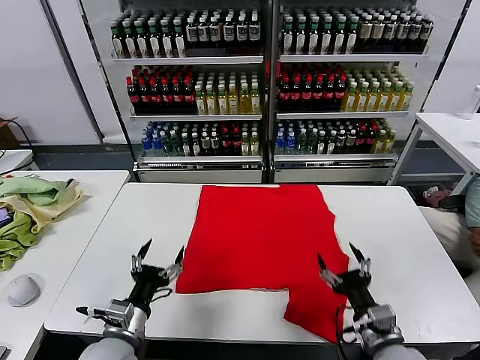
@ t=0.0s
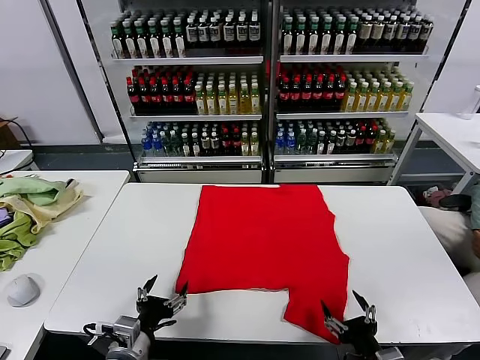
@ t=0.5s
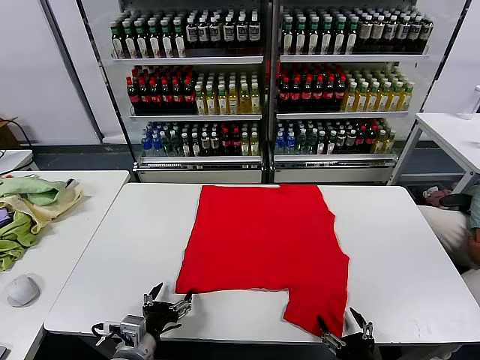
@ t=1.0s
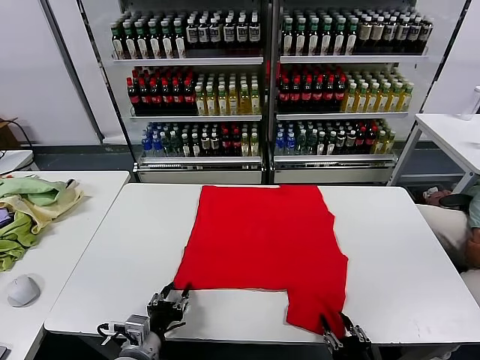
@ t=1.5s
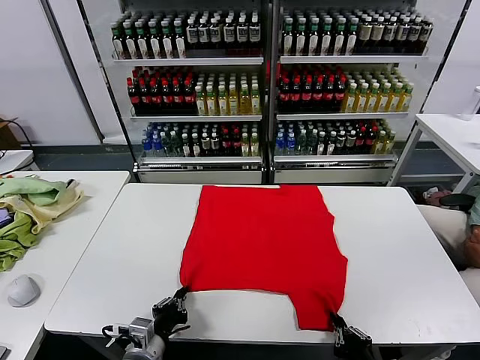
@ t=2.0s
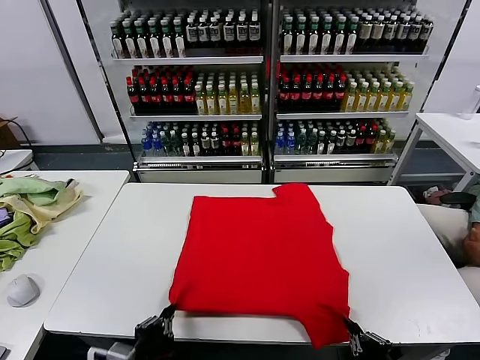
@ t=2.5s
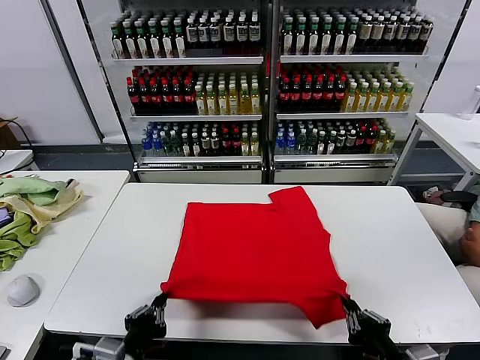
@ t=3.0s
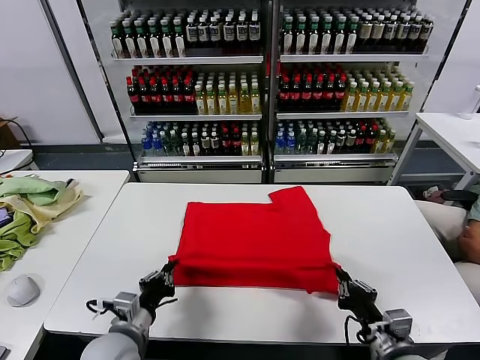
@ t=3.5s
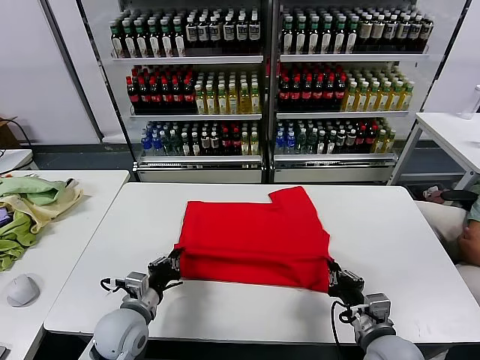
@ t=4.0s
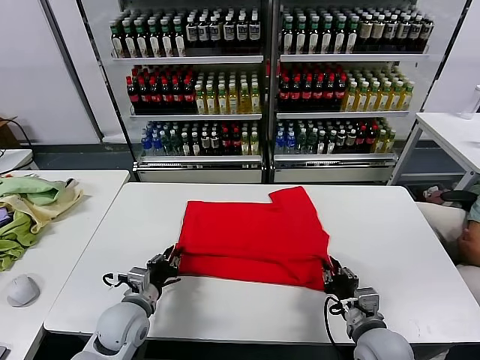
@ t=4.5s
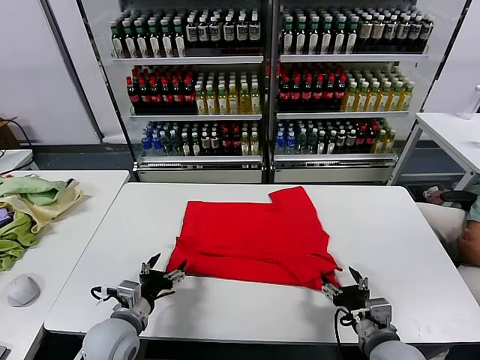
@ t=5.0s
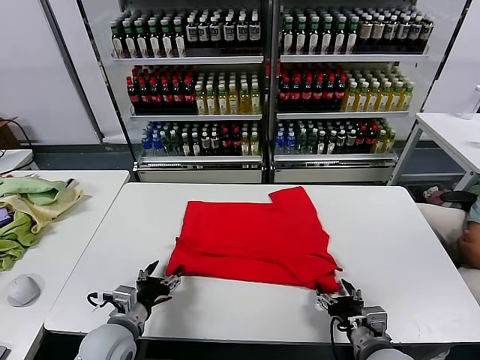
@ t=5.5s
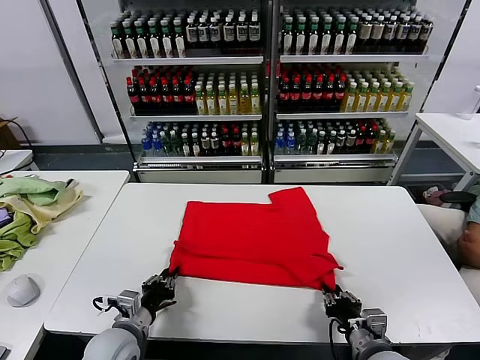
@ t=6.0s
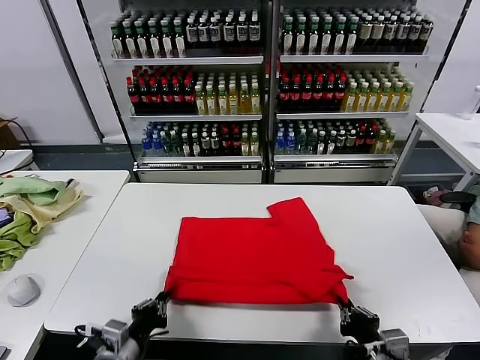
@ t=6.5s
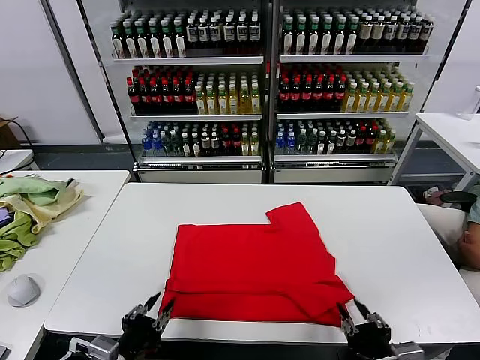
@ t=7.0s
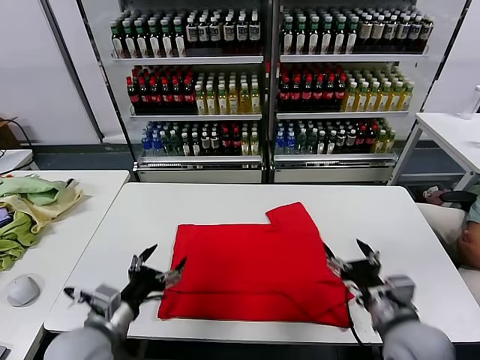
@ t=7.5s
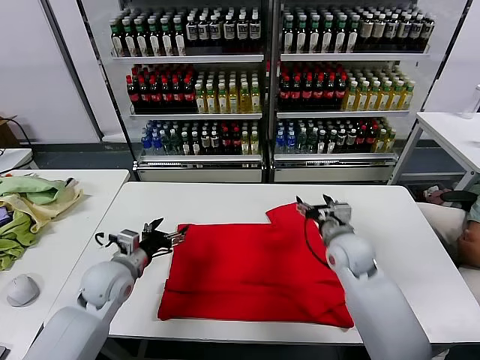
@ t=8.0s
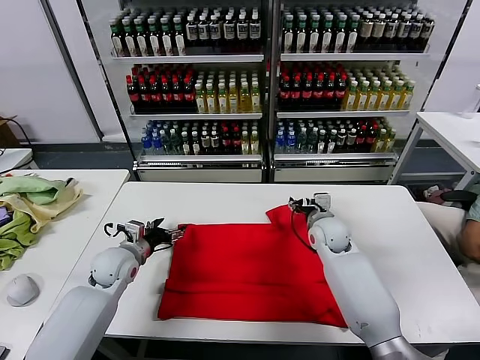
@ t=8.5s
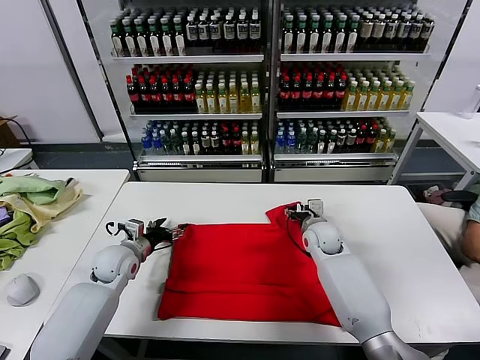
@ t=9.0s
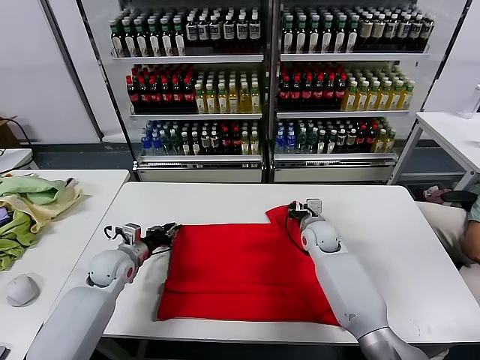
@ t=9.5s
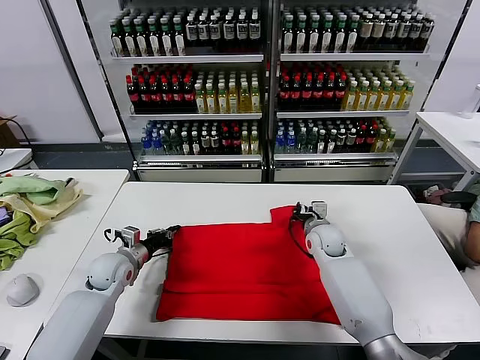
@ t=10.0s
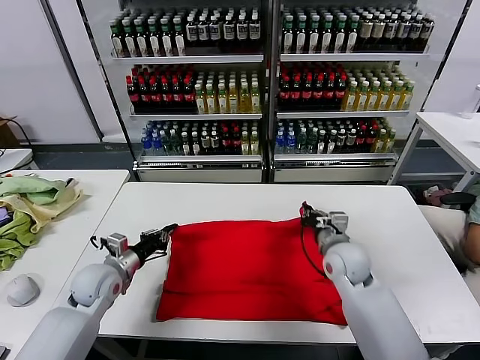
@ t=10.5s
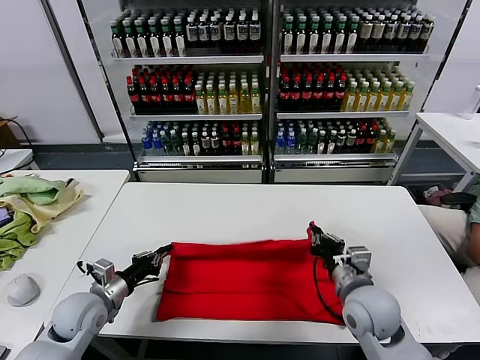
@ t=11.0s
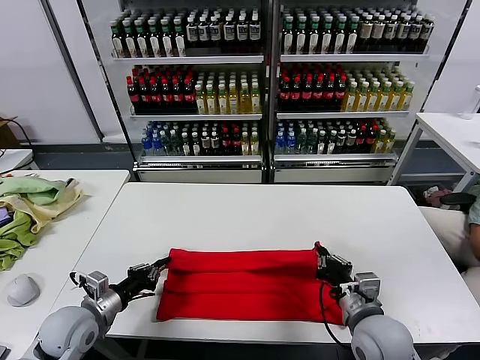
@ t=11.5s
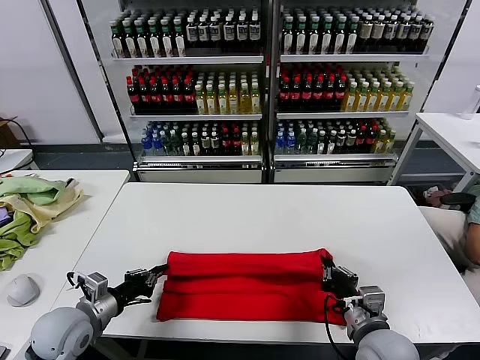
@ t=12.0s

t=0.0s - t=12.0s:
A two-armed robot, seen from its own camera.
Task of the whole recording: fold and organize the clothes.
Step, t=0.0s - t=2.0s: use both grippers simultaneously to clamp the lower edge of the clothing fabric.
Step, t=2.5s - t=4.5s: use both grippers to drag the lower edge of the fabric forward and fold it over the upper edge.
Step, t=5.0s - t=7.0s: Drag the clothes downward with both gripper.
Step, t=7.5s - t=9.5s: use both grippers simultaneously to clamp the upper edge of the clothing fabric.
t=2.0s - t=4.0s: The grippers both shift forward by about 10 cm.
t=4.0s - t=6.0s: The left gripper opens and closes again. The right gripper opens, then closes once more.
t=6.0s - t=8.0s: The right gripper moves forward, roughly 25 cm, and opens. The left gripper heads forward and upward, covering approximately 15 cm, and opens its fingers.
t=8.0s - t=10.0s: The right gripper is displaced downward by some 5 cm, and closes its fingers, while the left gripper heads forward and downward, covering approximately 10 cm, and closes its fingers.
t=10.0s - t=12.0s: The right gripper goes about 30 cm backward; the left gripper moves backward, roughly 15 cm.

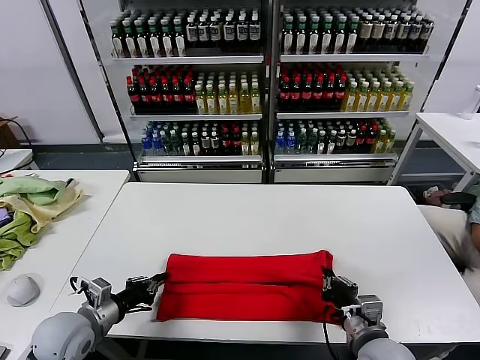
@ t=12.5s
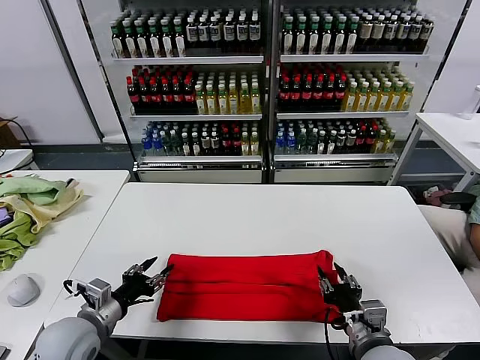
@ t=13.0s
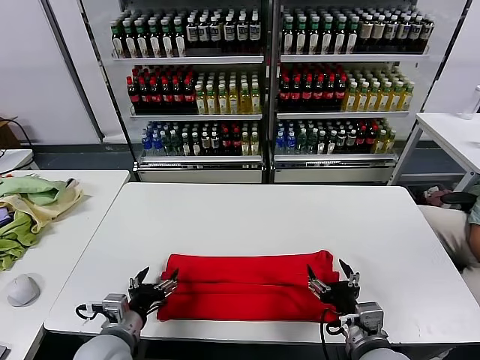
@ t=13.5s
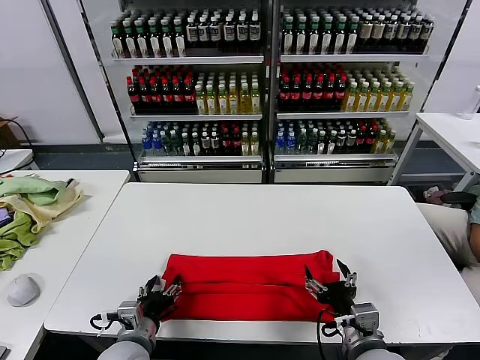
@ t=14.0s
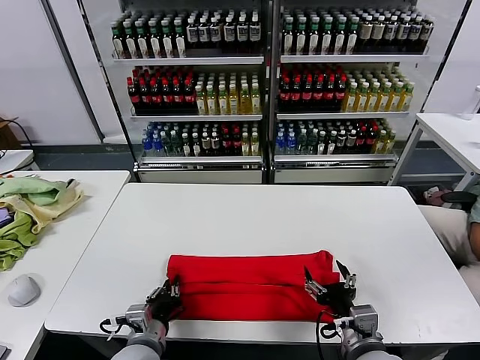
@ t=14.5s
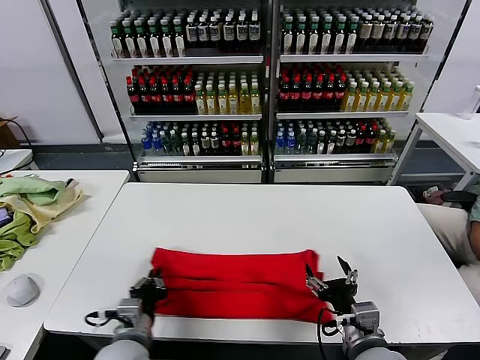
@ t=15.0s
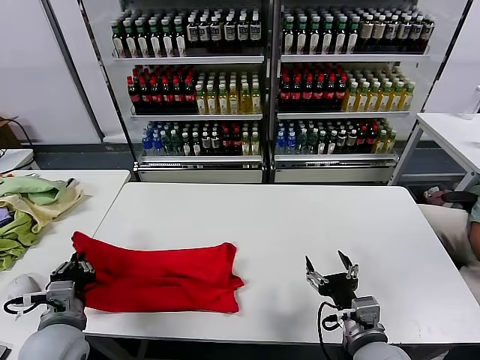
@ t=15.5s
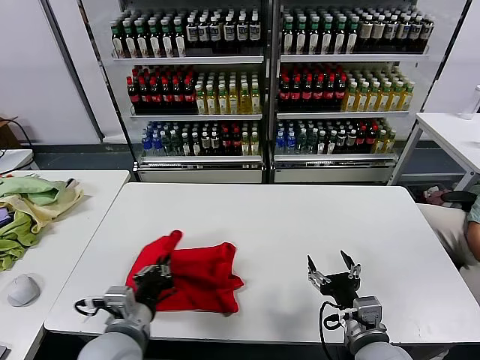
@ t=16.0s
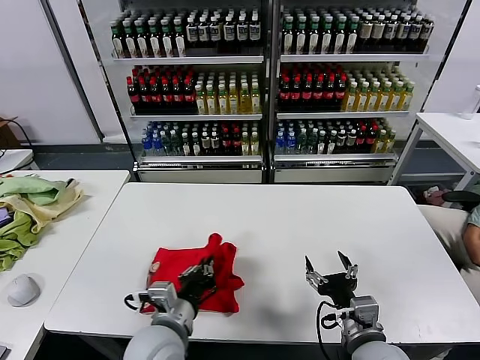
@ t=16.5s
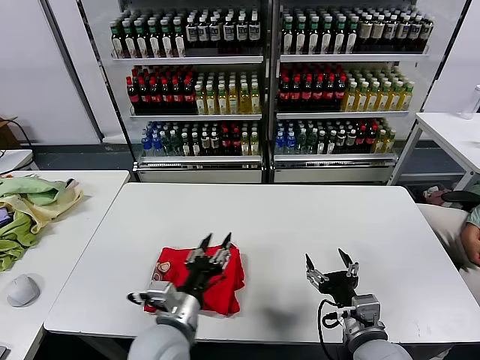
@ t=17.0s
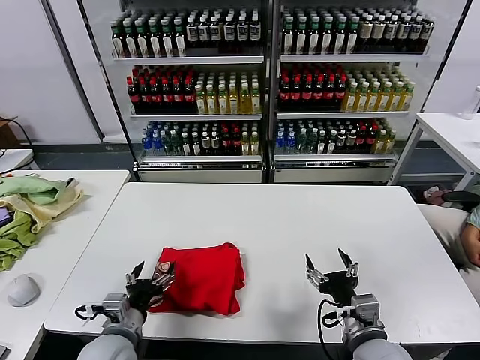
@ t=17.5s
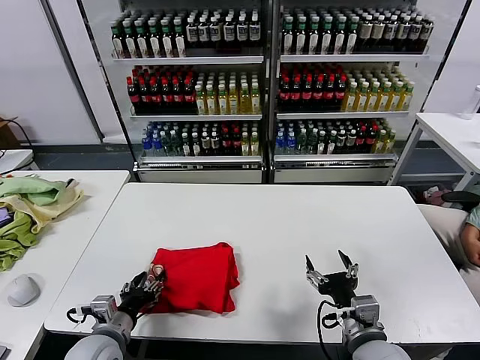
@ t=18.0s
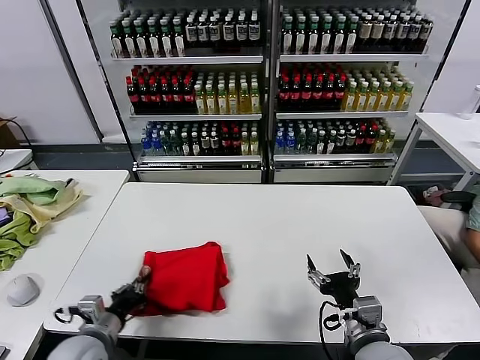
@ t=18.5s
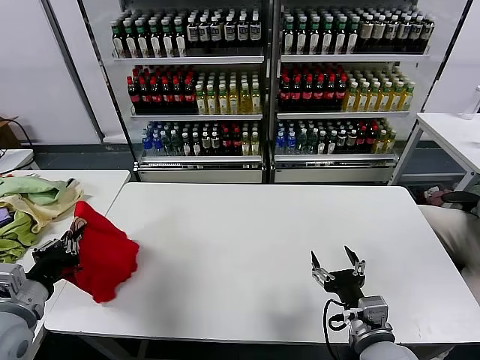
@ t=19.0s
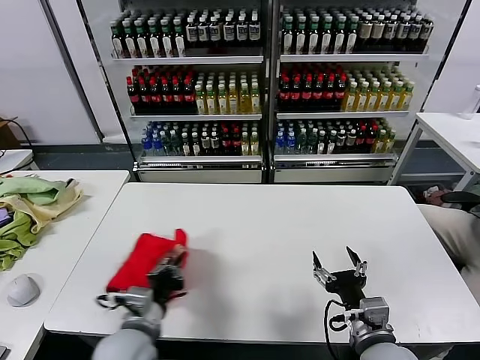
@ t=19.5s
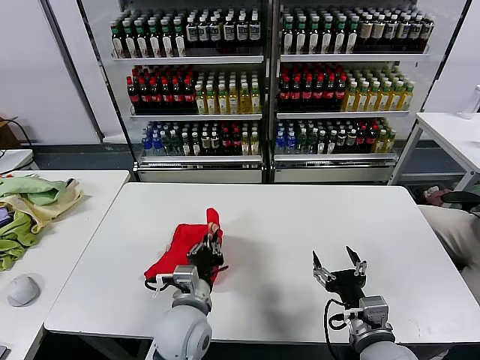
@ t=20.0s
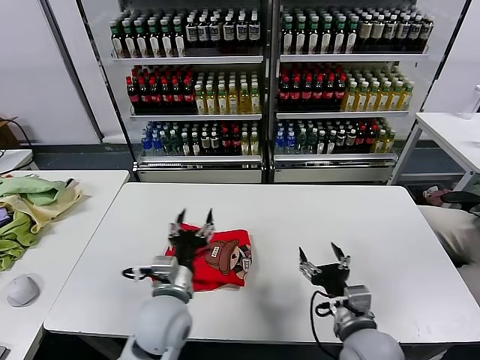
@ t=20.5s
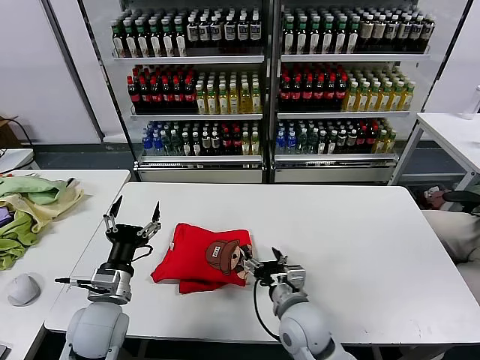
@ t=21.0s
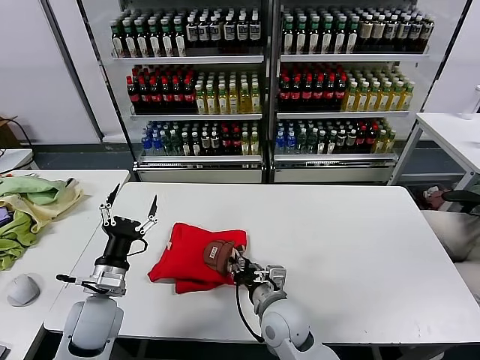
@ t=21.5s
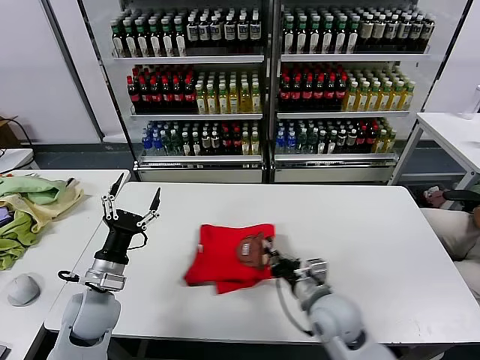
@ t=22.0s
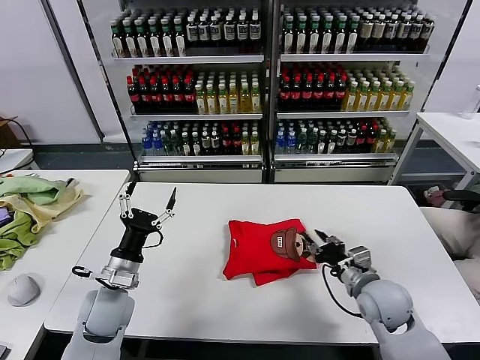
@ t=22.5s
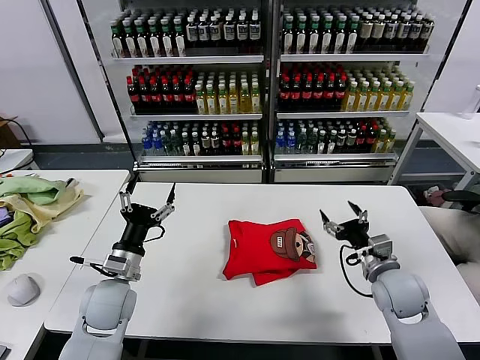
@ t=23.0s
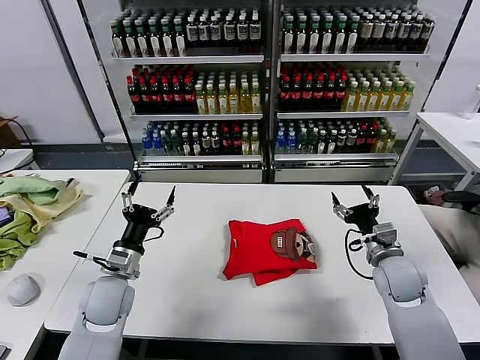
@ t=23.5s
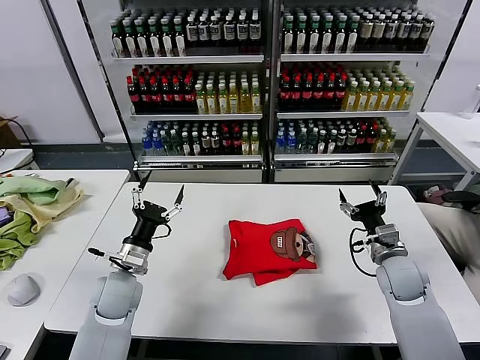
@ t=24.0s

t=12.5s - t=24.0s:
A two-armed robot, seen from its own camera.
Task of the whole recording: fold and organize the clothes.
Step, t=13.5s - t=14.5s: use the left gripper to clamp the left edge of the fabric.
Step, t=15.0s - t=16.5s: use the left gripper to drag the left edge of the fabric to the left and folds it over the right edge.
Step, t=17.0s - t=20.0s: Flip the folded clothes over with left gripper.
Step, t=20.5s - t=22.5s: Drag the clothes to the center of the table.
t=12.5s - t=14.5s: The left gripper moves to the right, roughly 15 cm, and opens and closes again, while the right gripper opens its fingers.
t=14.5s - t=16.5s: The left gripper travels upward by approximately 10 cm, and travels to the left and back again, approximately 10 cm each way.
t=16.5s - t=18.5s: The left gripper moves to the left and downward, roughly 15 cm, and opens and closes again.
t=18.5s - t=20.0s: The left gripper shifts approximately 20 cm to the right.
t=20.0s - t=22.0s: The right gripper moves forward and to the left, some 15 cm, and closes; the left gripper travels to the left by about 20 cm, and opens up.
t=22.0s - t=24.0s: The left gripper moves some 5 cm. The right gripper travels to the right and forward by roughly 20 cm, and opens up.
